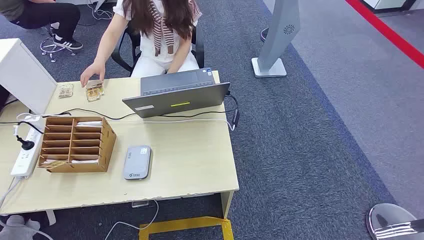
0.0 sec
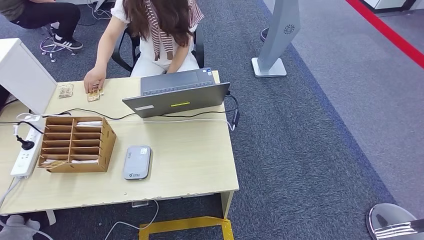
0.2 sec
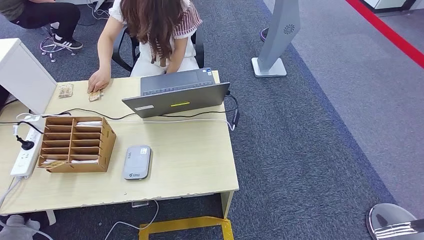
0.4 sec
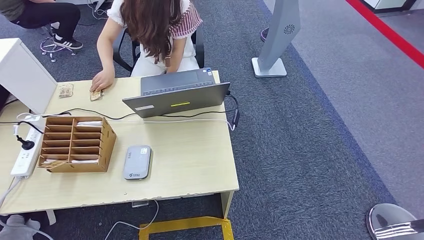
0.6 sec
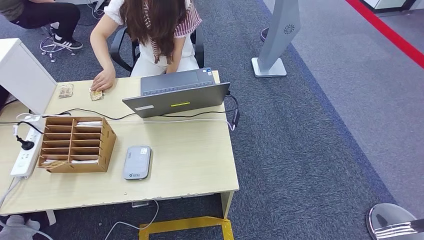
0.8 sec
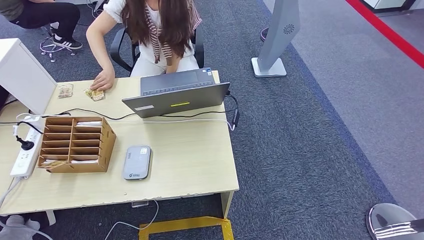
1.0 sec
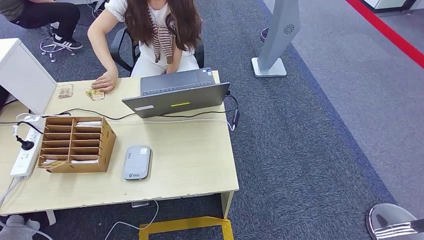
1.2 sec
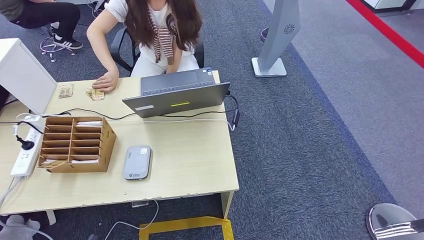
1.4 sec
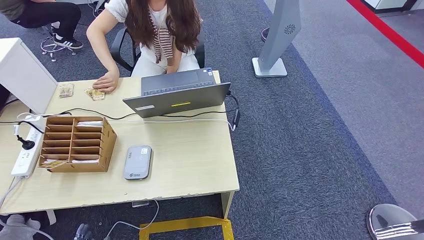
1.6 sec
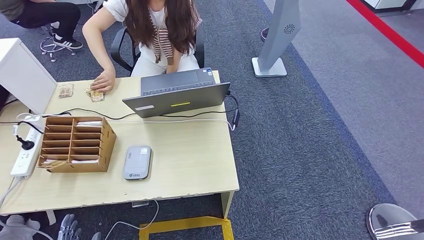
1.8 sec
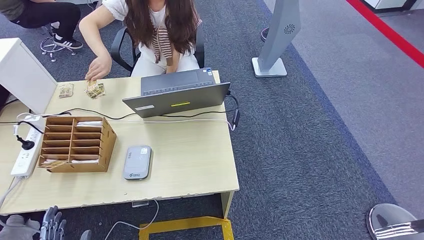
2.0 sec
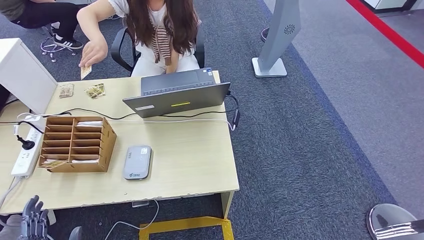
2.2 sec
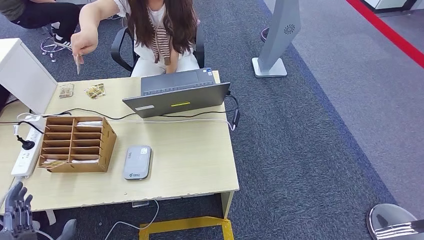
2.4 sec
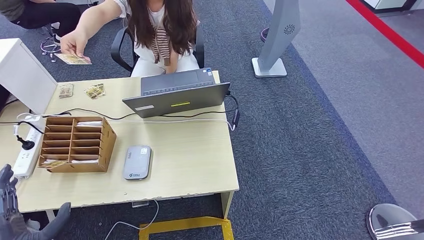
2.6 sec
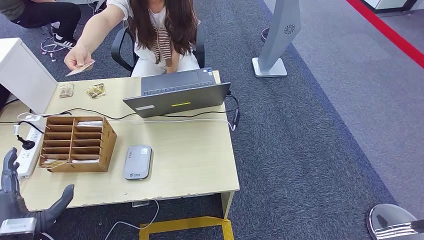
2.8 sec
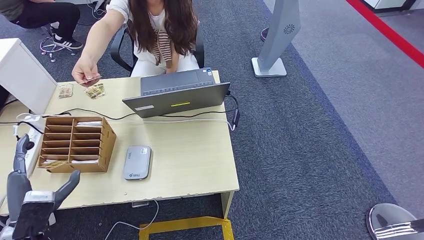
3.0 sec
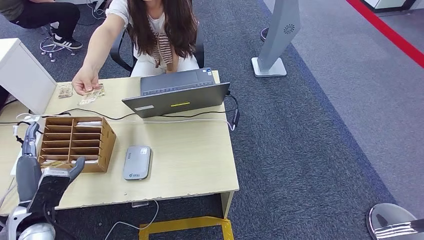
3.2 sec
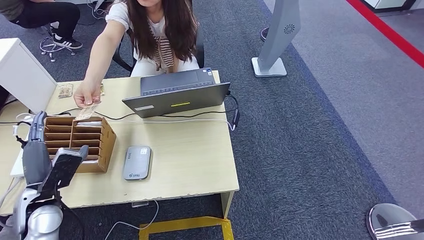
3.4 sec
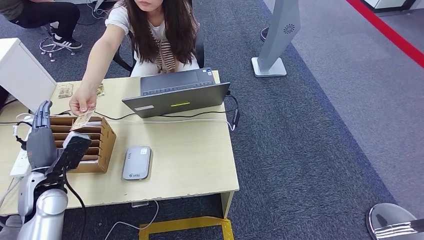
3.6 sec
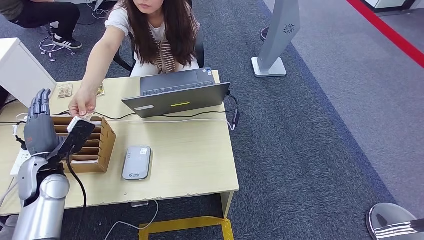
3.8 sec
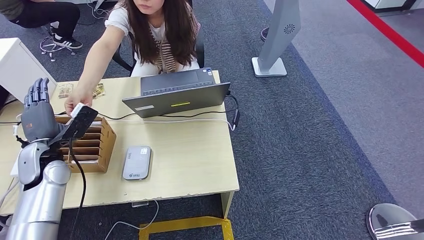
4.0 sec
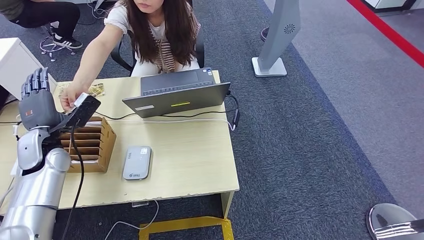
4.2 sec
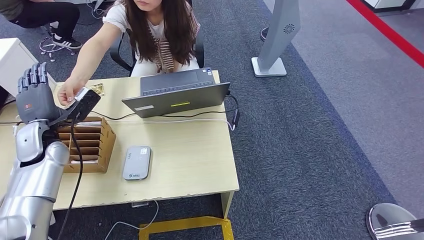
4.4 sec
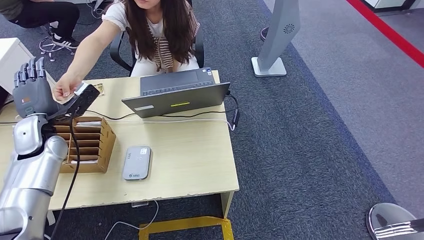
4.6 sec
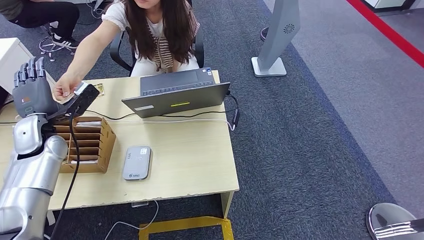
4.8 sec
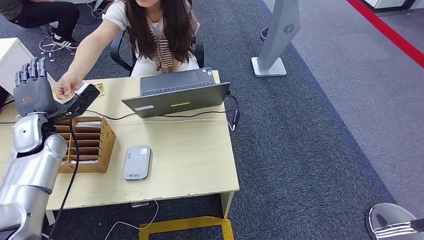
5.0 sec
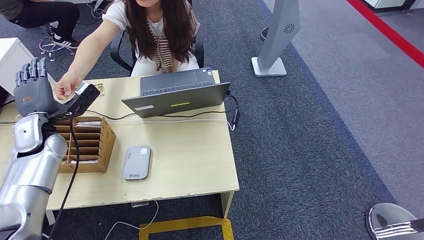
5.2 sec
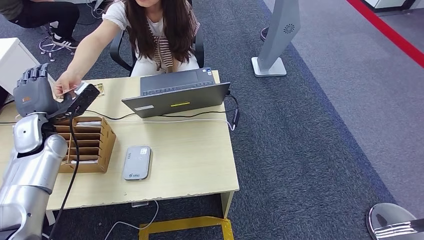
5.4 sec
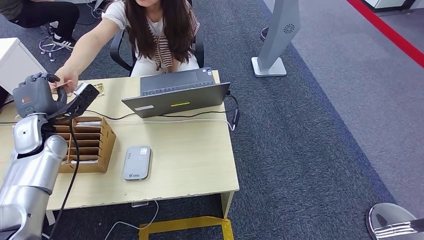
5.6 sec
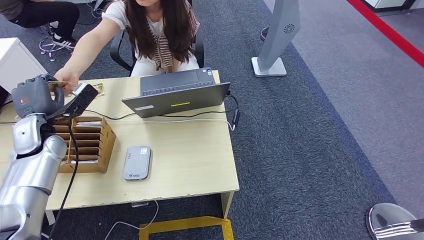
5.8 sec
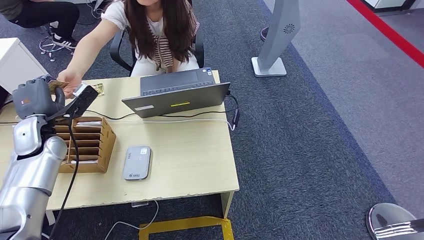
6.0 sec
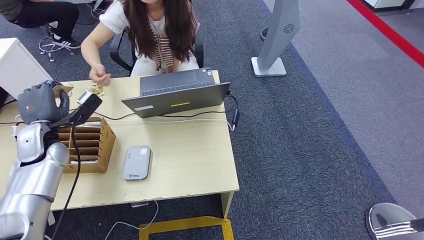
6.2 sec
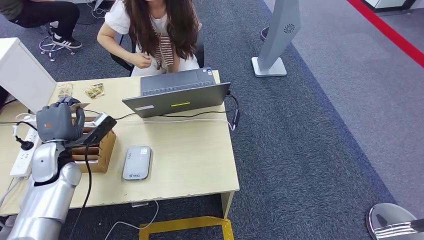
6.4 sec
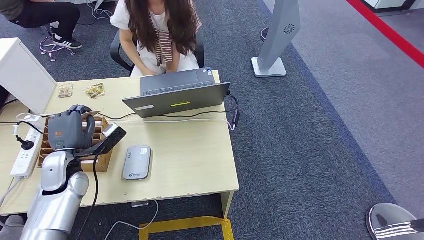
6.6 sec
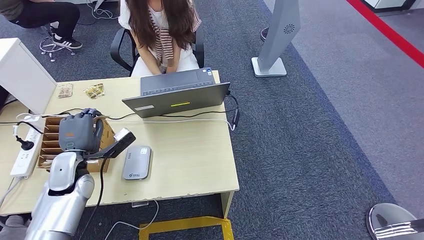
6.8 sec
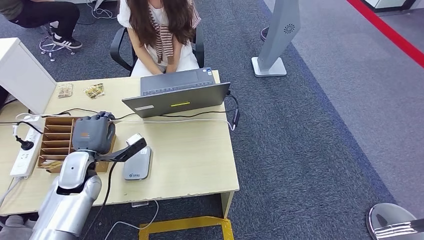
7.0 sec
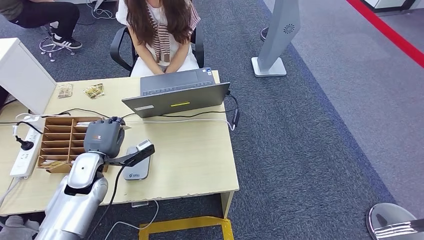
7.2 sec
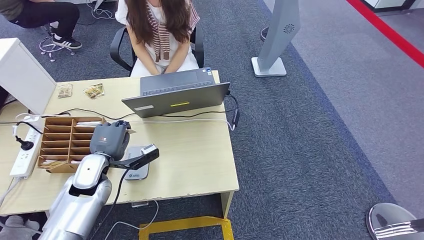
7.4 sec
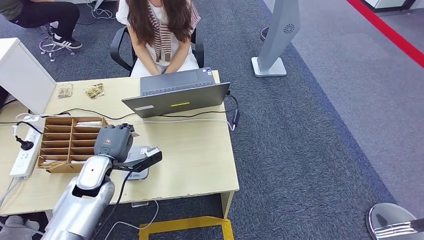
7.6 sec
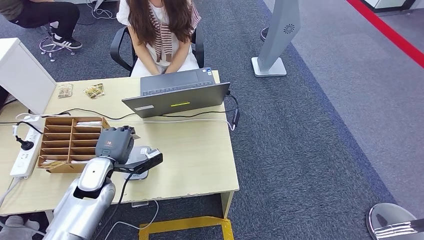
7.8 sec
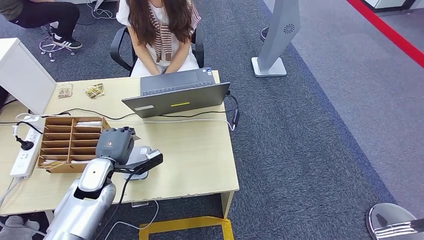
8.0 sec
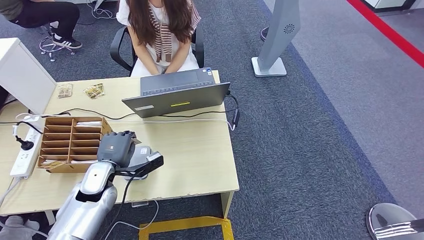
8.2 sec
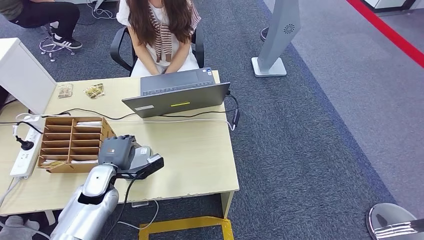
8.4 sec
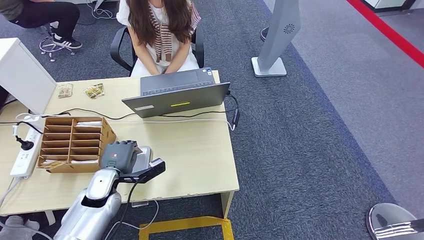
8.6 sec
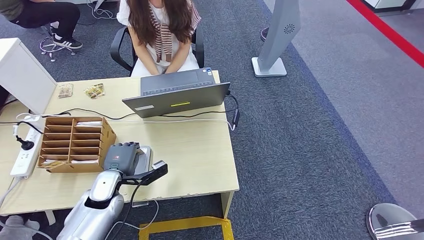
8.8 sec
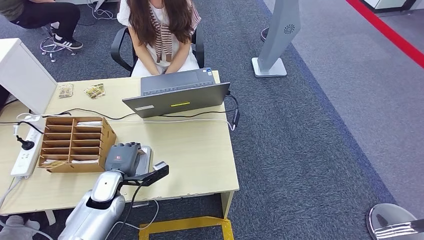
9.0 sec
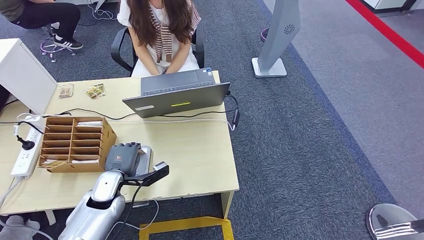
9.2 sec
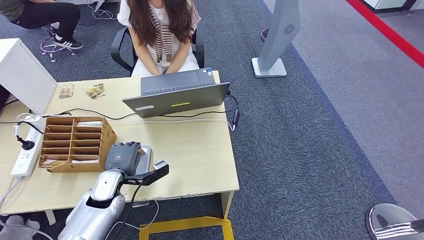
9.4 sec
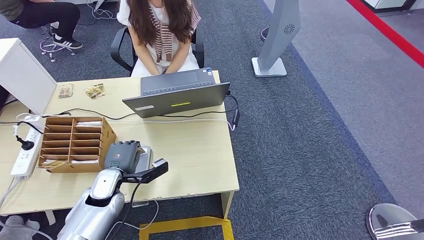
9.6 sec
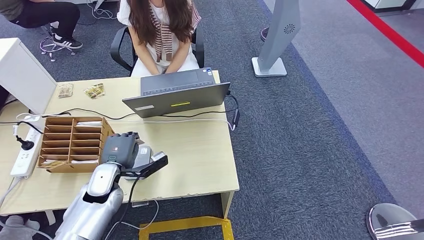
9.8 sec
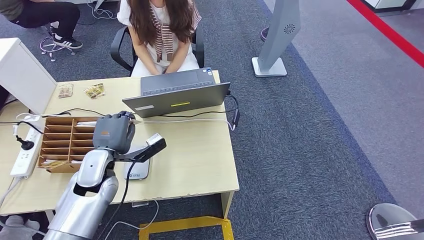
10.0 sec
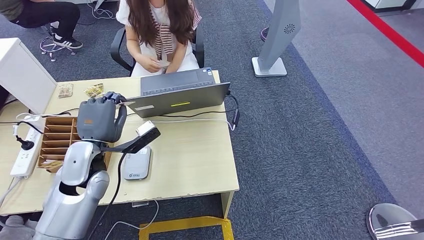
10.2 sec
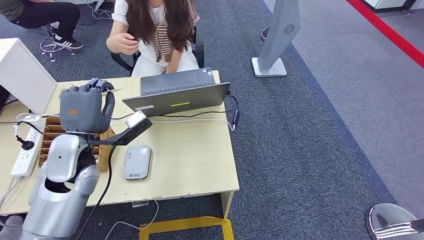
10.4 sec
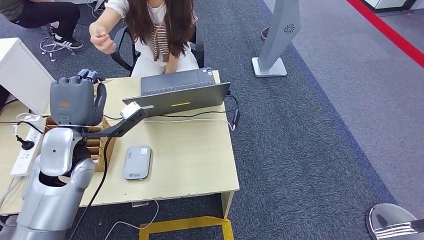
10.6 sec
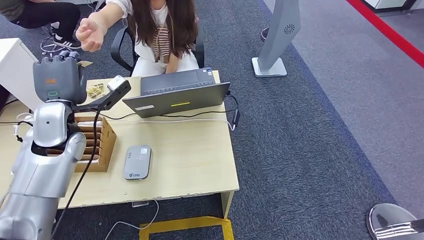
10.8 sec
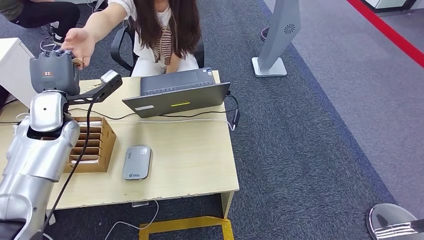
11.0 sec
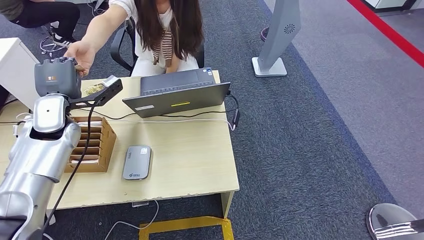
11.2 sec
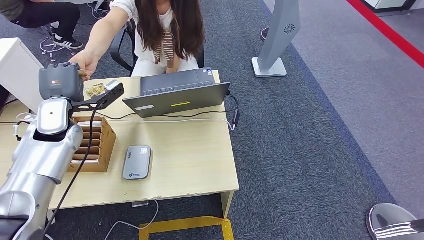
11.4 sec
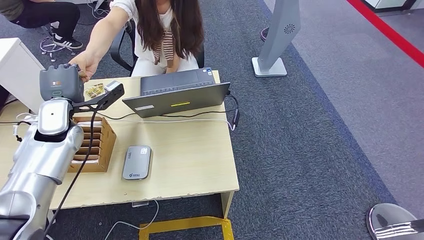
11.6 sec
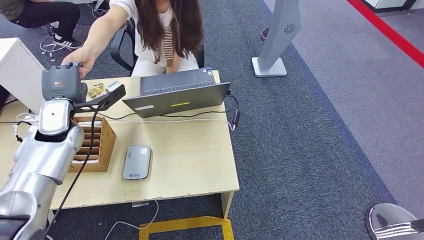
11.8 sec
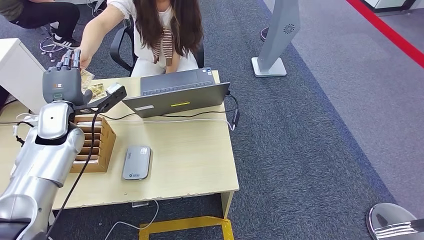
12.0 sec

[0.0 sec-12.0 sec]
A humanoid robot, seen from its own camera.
Step, 0.0 sec to 6.2 sec: Take the ID card from the person's hand.
Step, 6.6 sec to 9.0 sec: Place the ID card on the card reader.
1.6 sec to 3.0 sec: The left hand is displaced upward and forward by approximately 25 cm.
3.0 sec to 4.4 sec: The left hand travels forward by roughly 20 cm.
4.4 sec to 6.0 sec: The hands make only small movements.
7.6 sec to 9.0 sec: The left hand goes roughly 5 cm downward.
9.0 sec to 10.4 sec: The left hand moves upward, roughly 15 cm.
10.4 sec to 12.0 sec: The left hand heads forward and to the left, covering about 10 cm.

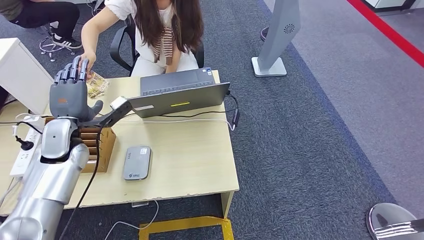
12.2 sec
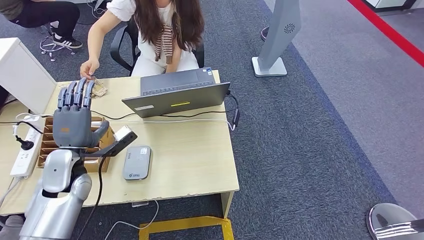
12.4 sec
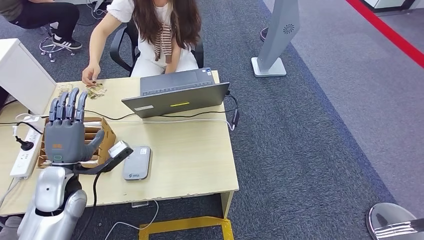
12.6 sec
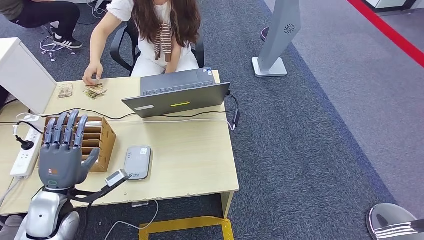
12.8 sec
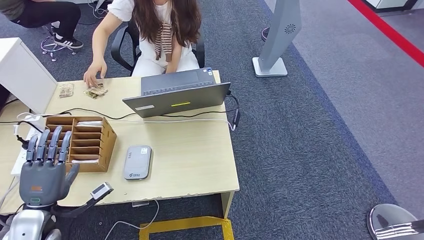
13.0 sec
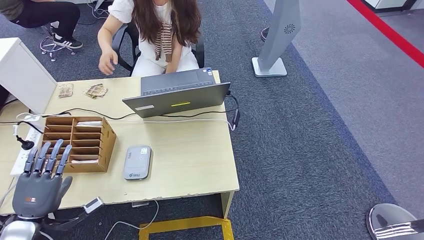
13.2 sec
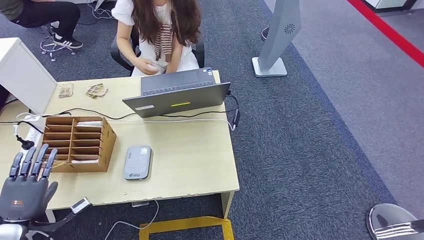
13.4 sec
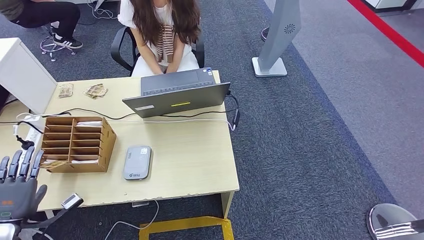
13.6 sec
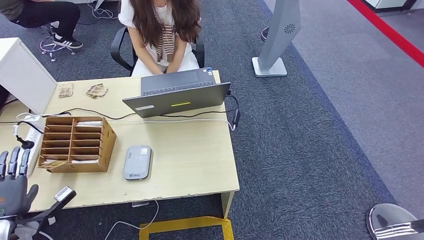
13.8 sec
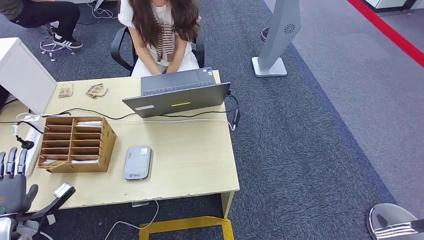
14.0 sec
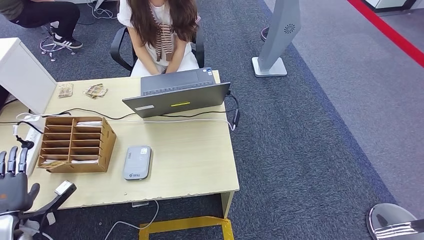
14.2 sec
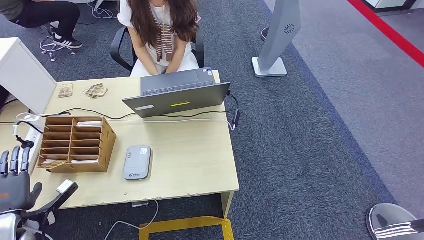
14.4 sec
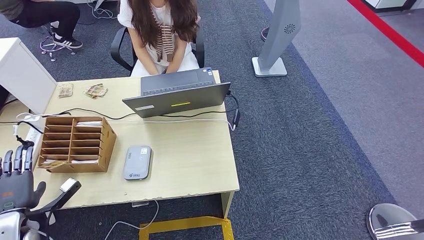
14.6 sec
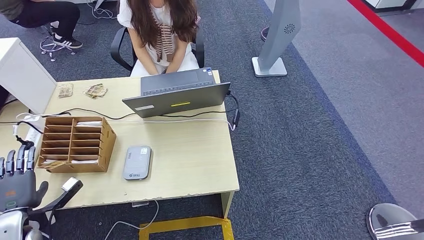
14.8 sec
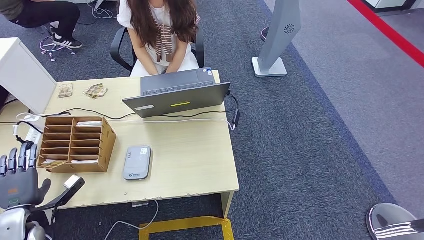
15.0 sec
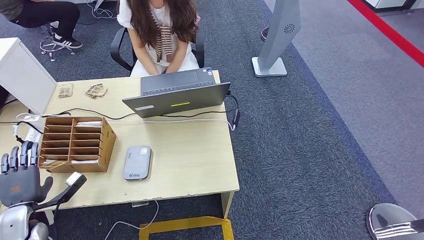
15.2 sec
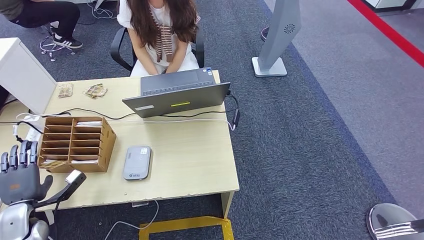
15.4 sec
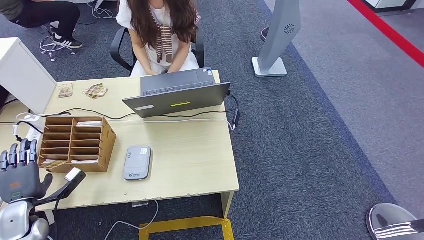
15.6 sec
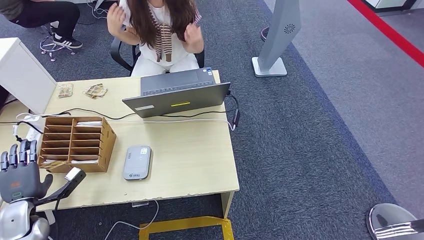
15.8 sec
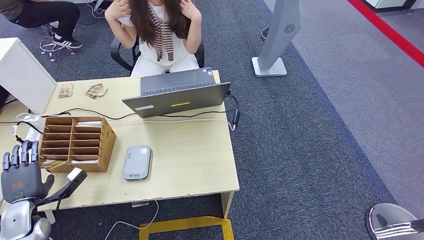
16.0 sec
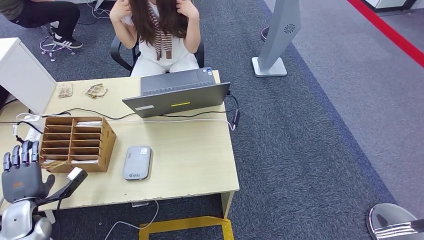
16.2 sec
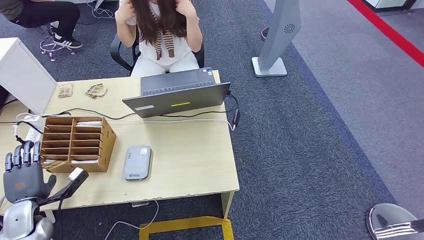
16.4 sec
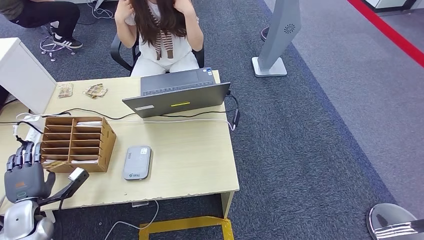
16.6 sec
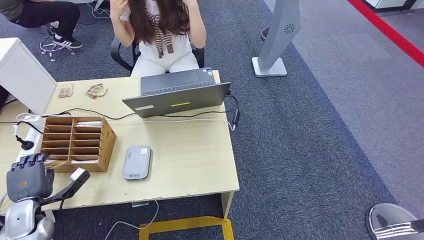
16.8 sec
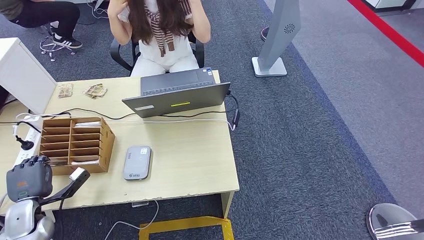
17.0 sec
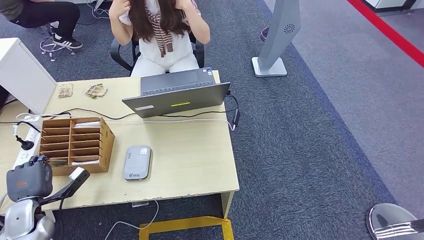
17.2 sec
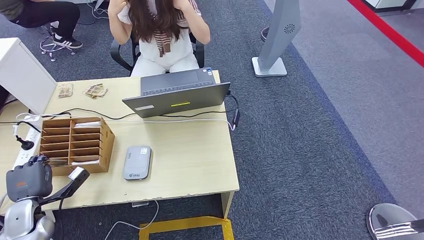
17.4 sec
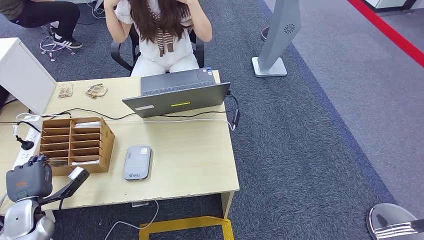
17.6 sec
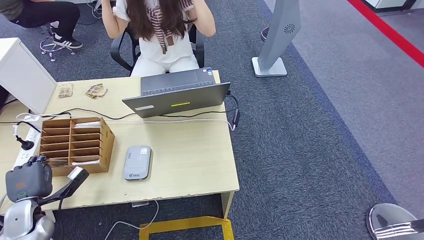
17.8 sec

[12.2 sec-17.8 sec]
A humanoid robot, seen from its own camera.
12.2 sec to 13.6 sec: The left hand is displaced backward, to the left and downward by about 30 cm.
13.6 sec to 15.0 sec: There are only small adjustments of the hands.
15.0 sec to 17.8 sec: The hands stay close to where they were, moving slightly.
